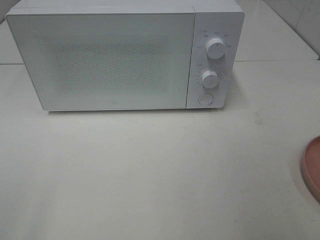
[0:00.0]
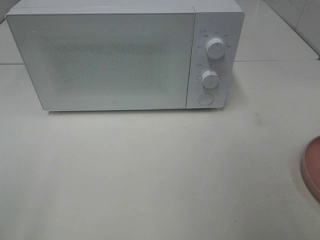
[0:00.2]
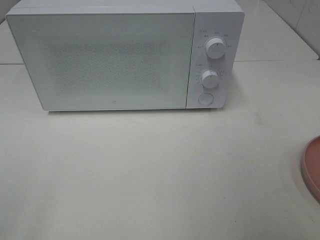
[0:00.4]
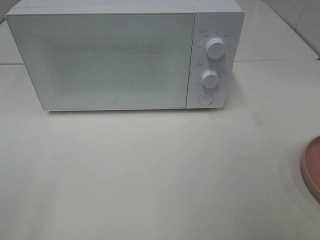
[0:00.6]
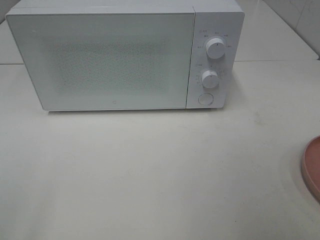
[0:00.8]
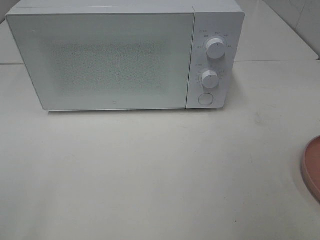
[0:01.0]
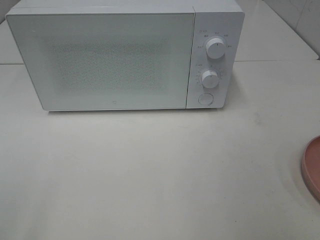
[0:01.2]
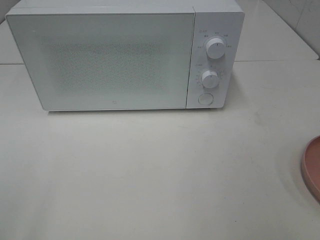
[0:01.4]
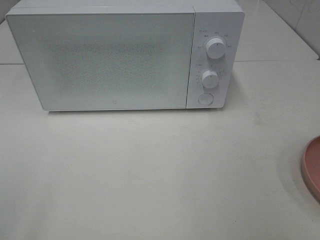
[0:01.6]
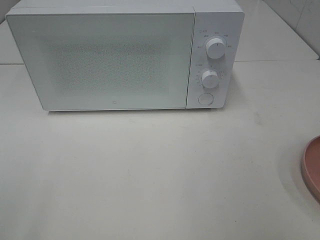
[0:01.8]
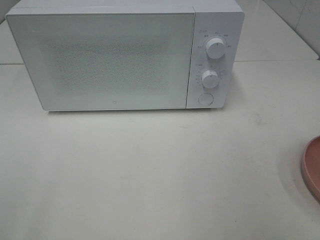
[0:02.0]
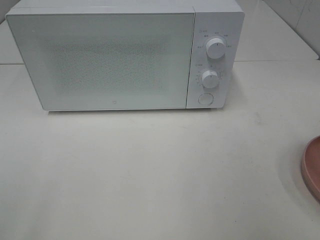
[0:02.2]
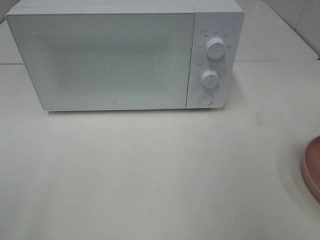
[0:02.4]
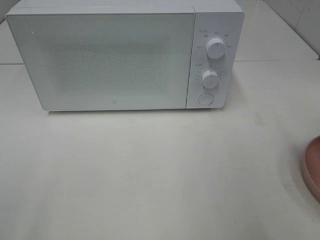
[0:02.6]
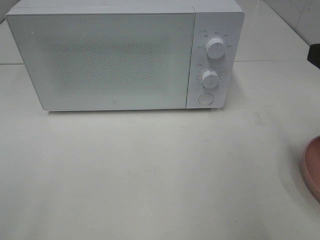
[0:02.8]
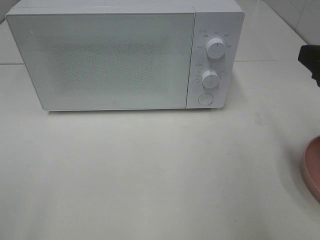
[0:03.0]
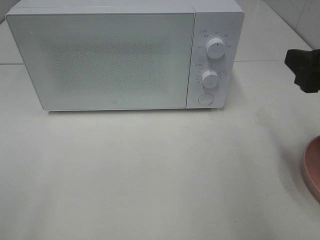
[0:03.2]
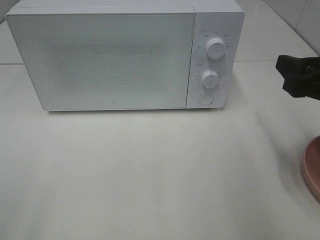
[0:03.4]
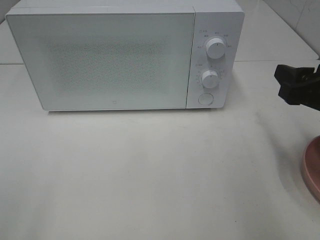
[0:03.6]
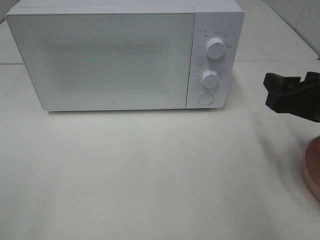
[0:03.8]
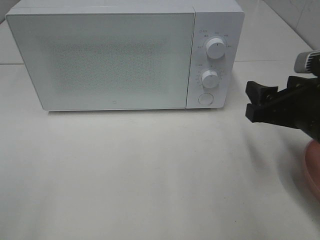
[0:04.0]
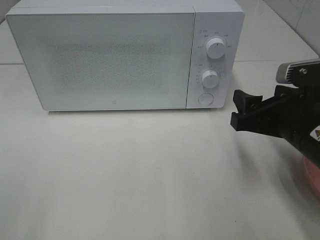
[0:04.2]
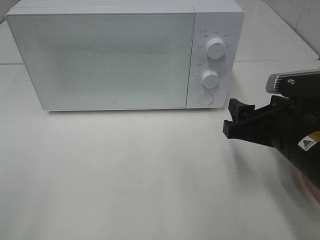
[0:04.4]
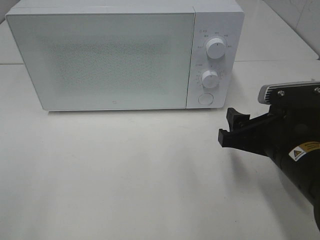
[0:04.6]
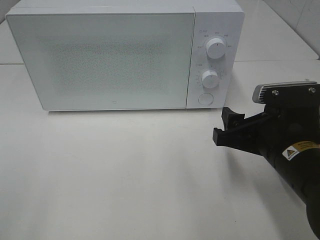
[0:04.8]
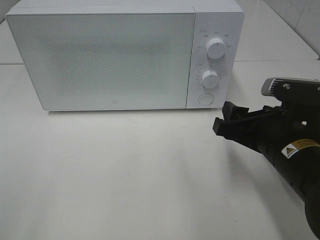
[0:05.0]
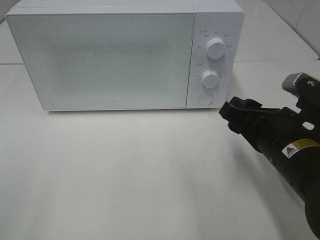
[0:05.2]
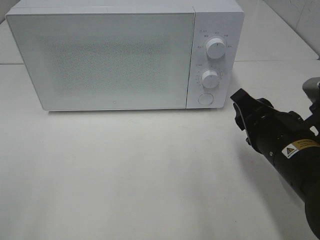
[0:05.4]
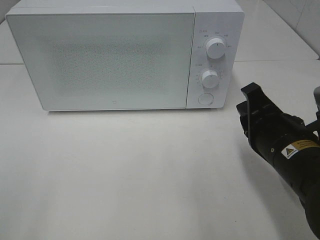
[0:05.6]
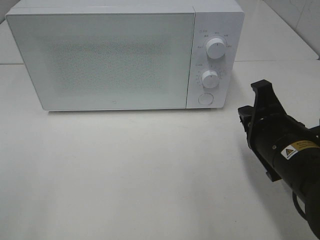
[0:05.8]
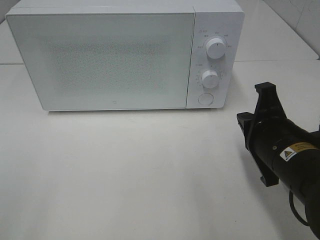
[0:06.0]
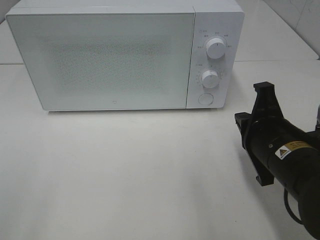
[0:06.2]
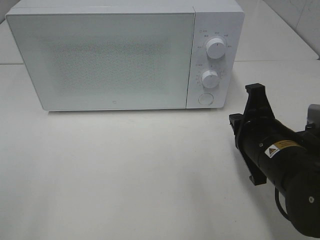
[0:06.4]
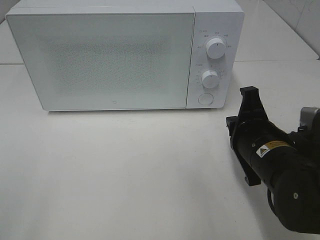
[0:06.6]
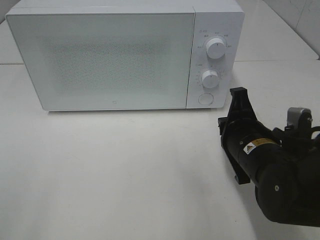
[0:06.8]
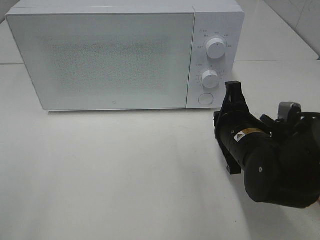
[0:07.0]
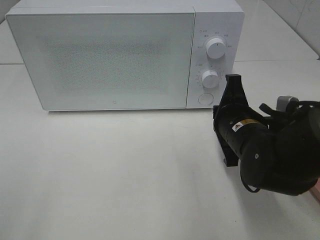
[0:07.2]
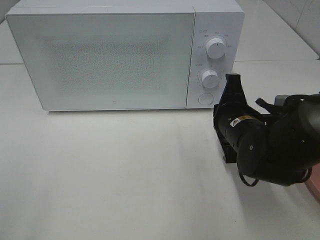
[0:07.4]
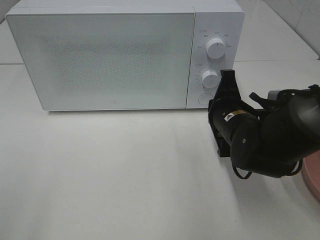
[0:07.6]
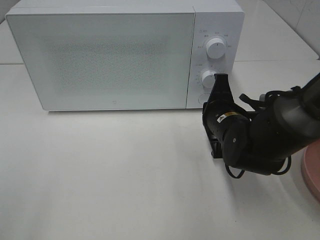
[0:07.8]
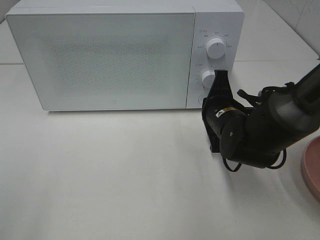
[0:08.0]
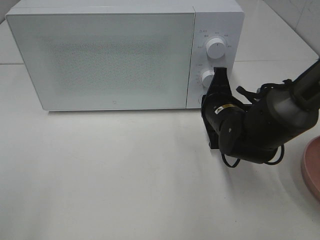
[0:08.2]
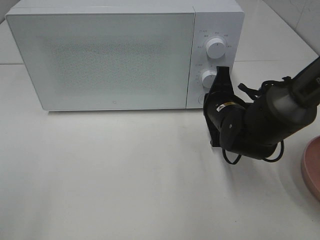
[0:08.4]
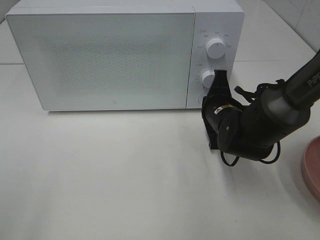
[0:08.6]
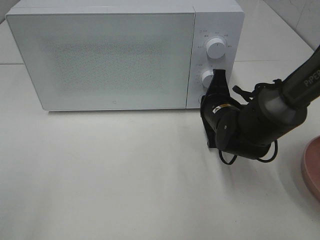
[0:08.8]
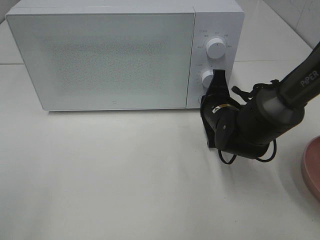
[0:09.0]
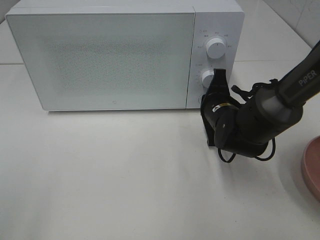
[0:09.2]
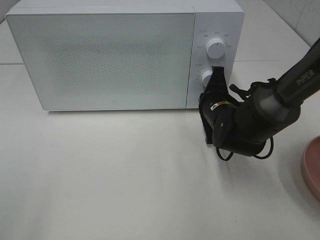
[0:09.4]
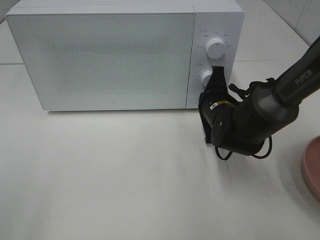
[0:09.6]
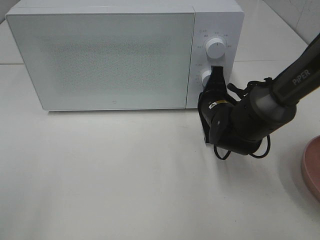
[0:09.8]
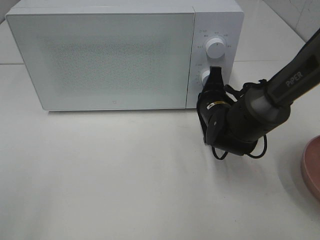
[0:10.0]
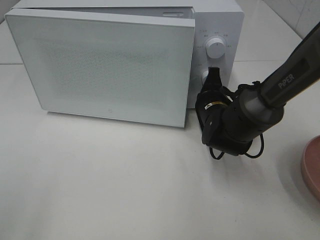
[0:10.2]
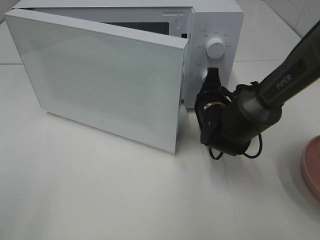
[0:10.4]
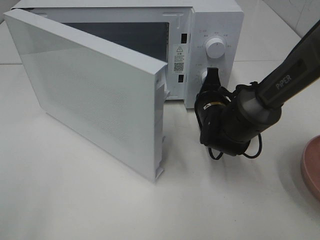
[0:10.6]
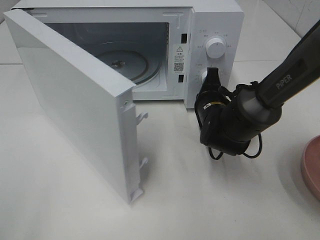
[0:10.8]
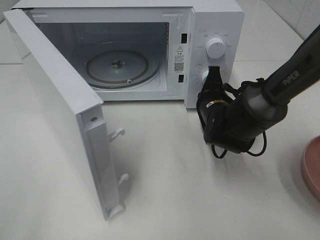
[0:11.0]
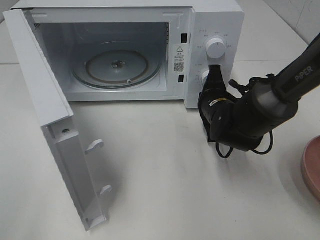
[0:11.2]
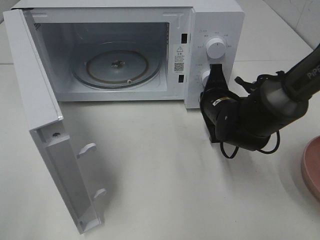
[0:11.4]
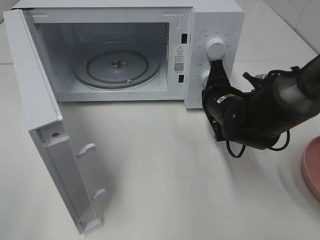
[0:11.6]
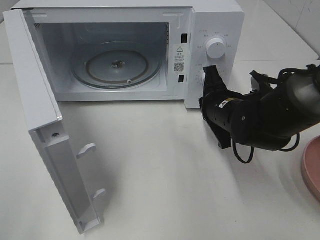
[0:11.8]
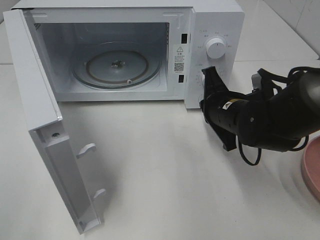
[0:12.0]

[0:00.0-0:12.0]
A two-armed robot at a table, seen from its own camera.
Task of the whole recording: Heat the burger.
Step, 0:00.0 to 0:11.4: Right hand: press the switch.
0:01.6 to 0:03.0: The right gripper shifts about 15 cm forward.
0:03.0 to 0:04.4: The right gripper travels downward and to the left by approximately 15 cm.
0:04.4 to 0:06.0: The right gripper closes.
0:06.0 to 0:07.6: The right gripper moves forward, some 10 cm.
0:07.6 to 0:09.0: The right gripper ends up some 5 cm from where it was.
0:09.0 to 0:10.4: The grippers move only a little.
0:10.4 to 0:12.0: The right gripper ends up approximately 5 cm from where it was.

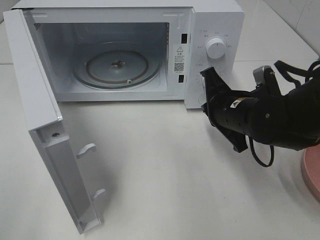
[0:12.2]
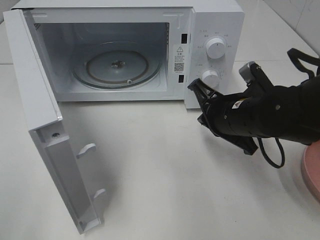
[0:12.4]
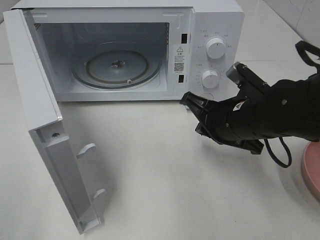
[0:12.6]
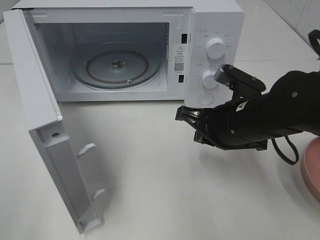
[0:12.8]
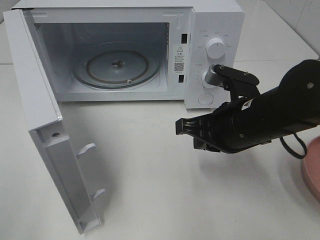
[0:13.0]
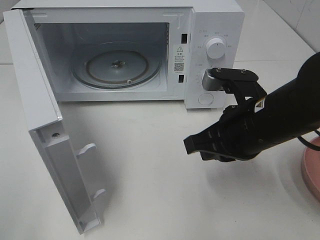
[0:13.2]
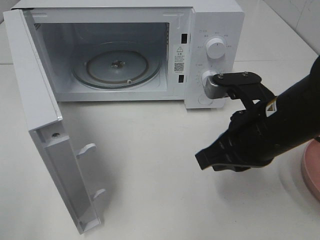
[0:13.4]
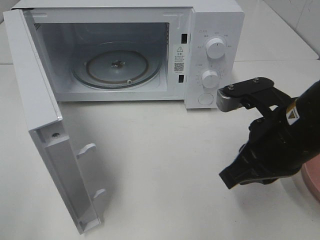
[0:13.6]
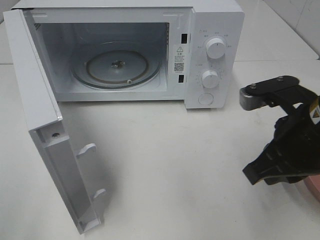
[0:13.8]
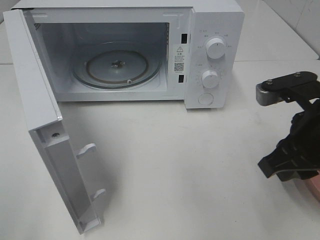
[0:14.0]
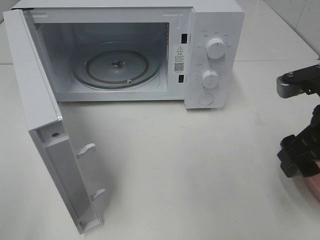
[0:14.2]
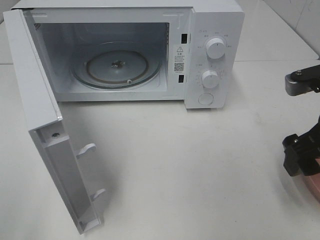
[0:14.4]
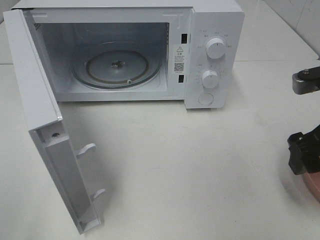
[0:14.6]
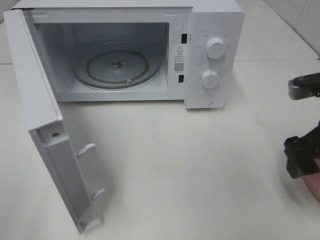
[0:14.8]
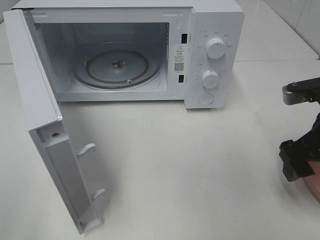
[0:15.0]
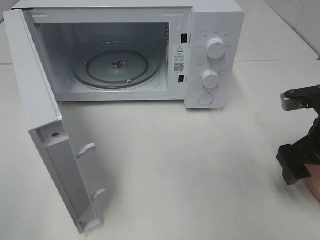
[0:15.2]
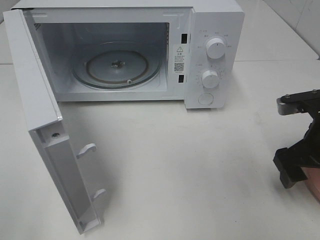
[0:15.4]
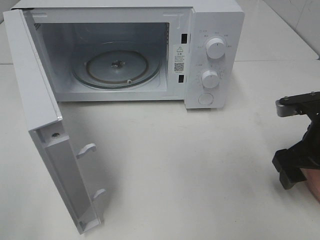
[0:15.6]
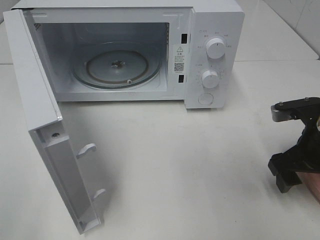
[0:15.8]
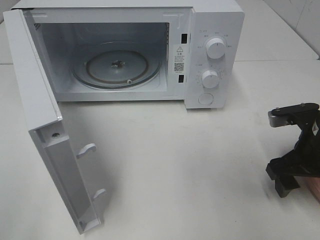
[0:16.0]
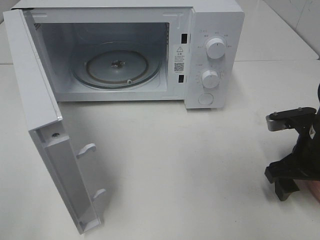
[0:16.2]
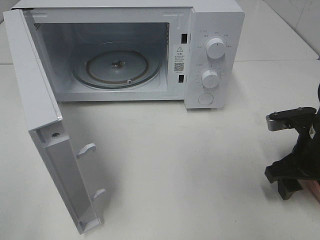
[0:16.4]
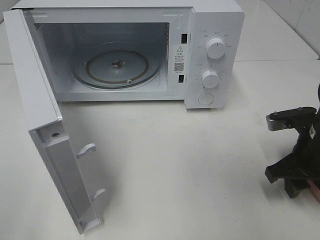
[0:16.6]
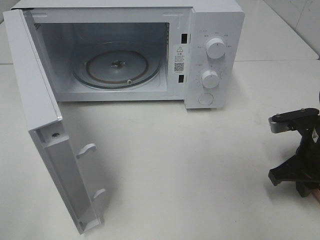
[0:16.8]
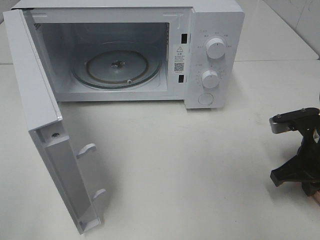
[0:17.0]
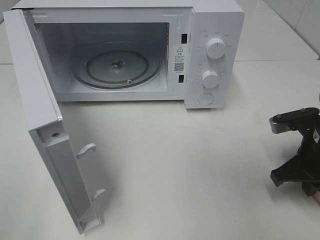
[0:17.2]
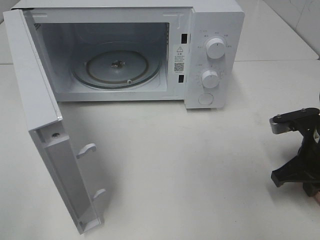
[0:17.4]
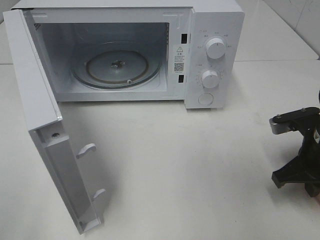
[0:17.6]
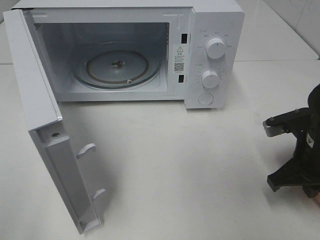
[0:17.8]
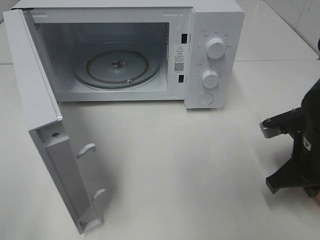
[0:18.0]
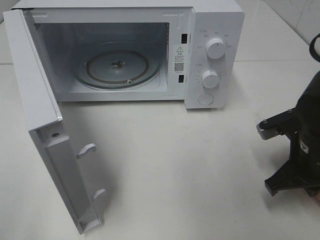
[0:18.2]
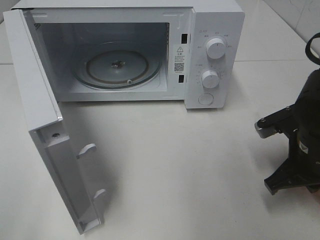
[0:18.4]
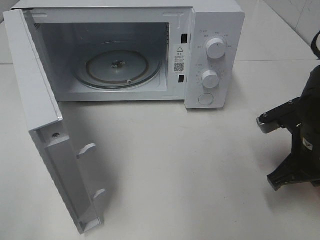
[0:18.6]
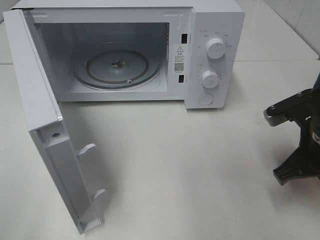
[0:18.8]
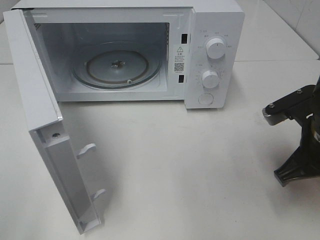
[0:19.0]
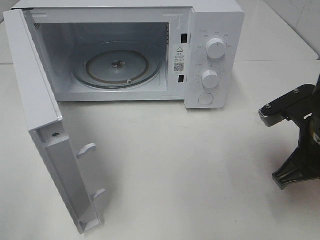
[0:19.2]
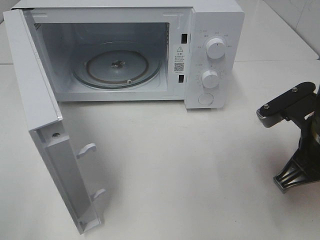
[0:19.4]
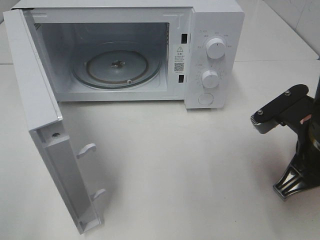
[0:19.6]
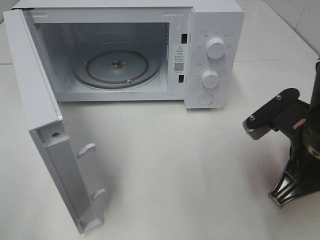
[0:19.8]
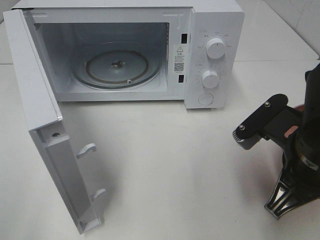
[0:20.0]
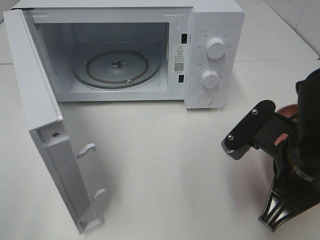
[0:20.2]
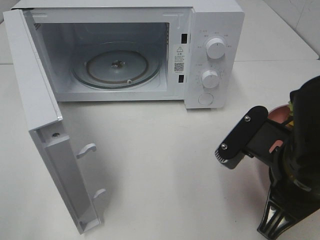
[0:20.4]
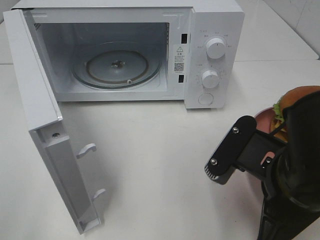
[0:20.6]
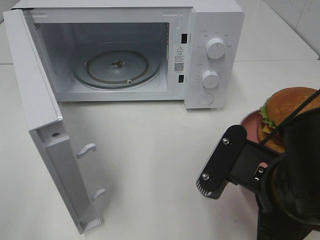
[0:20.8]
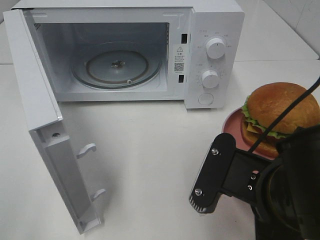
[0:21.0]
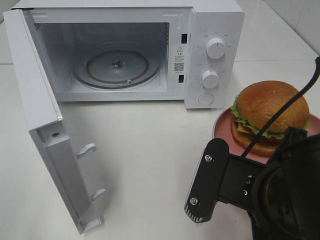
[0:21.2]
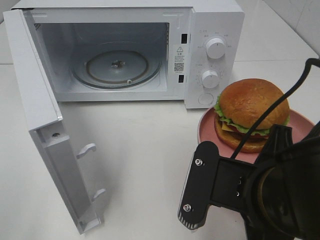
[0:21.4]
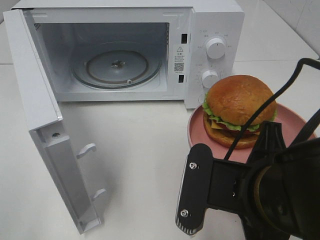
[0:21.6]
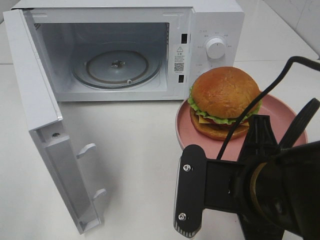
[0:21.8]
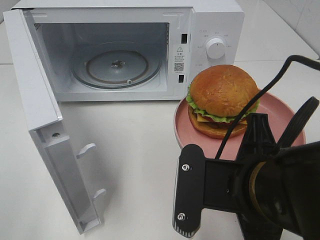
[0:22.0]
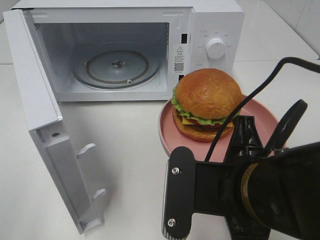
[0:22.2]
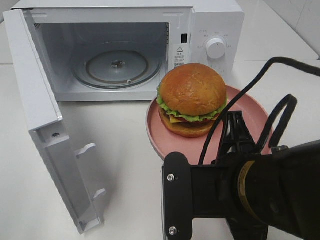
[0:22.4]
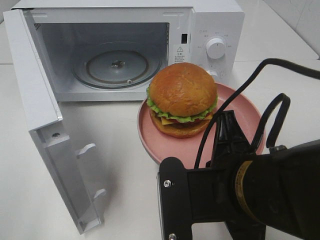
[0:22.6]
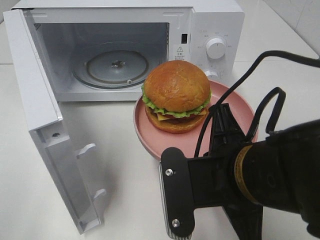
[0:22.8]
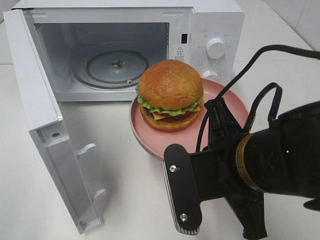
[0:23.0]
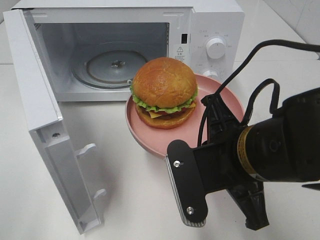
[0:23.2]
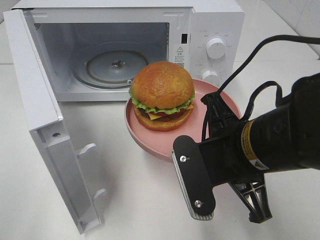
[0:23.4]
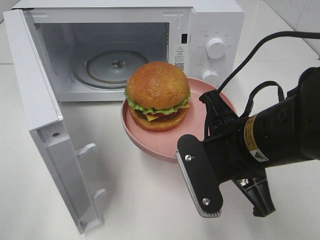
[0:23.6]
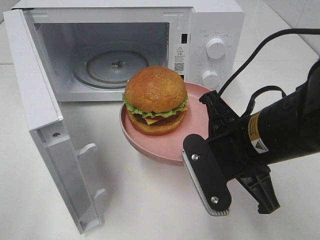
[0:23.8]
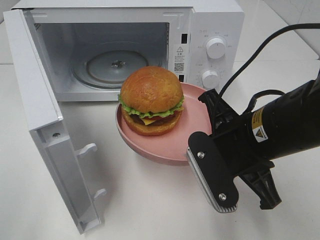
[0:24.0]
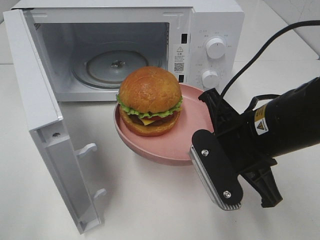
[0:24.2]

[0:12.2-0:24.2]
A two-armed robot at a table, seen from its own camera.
Task of the whole recording: Heat the burger.
Step, 0:12.2 to 0:17.2: Right hand: grab the plate with the hamburger.
0:12.2 to 0:13.8: The right gripper shifts roughly 15 cm backward and upward.
0:13.8 to 0:15.2: The right gripper shifts about 5 cm to the right, and opens.
0:15.2 to 0:16.6: The right gripper closes up.
0:16.6 to 0:18.2: The right gripper closes.
0:18.2 to 0:19.8: The right gripper is displaced upward by some 5 cm.
0:19.8 to 0:21.2: The right gripper shifts roughly 10 cm to the left and backward.
0:22.6 to 0:24.2: The right gripper shifts about 10 cm forward.
